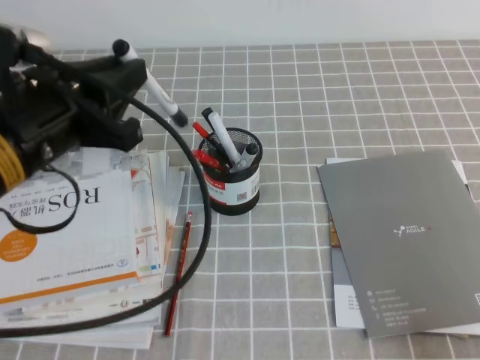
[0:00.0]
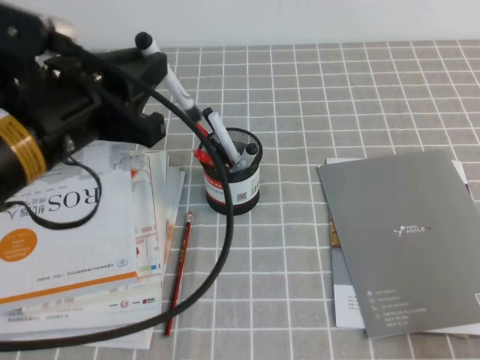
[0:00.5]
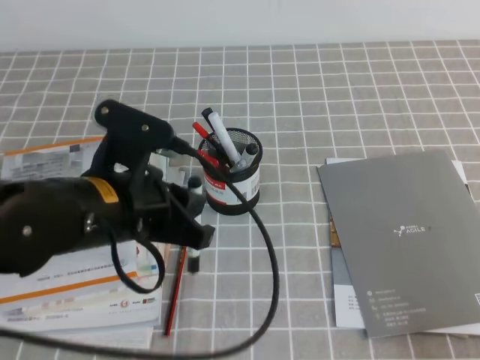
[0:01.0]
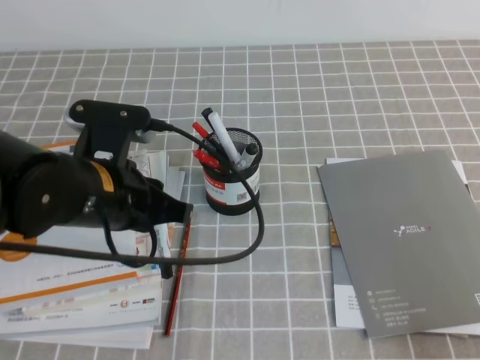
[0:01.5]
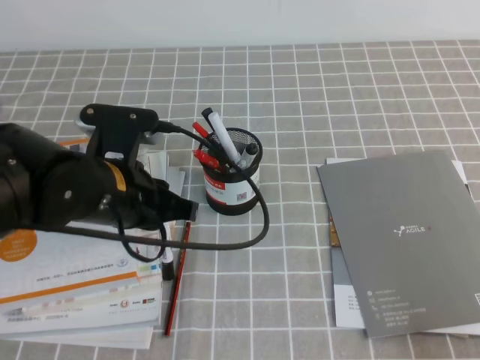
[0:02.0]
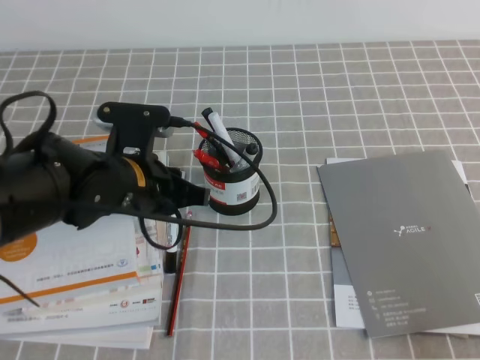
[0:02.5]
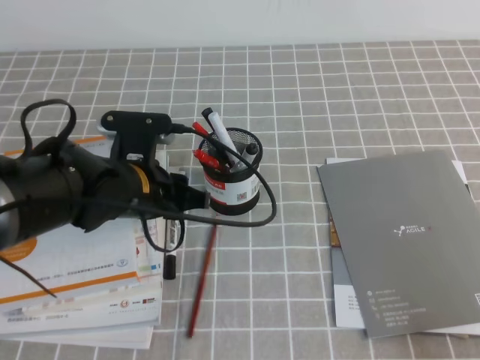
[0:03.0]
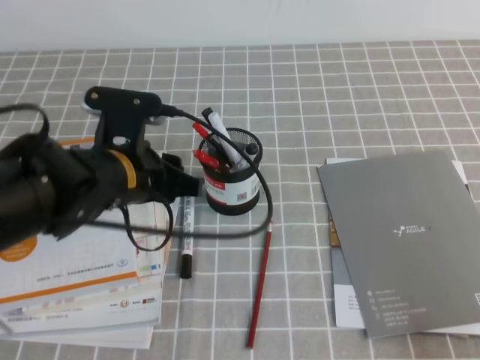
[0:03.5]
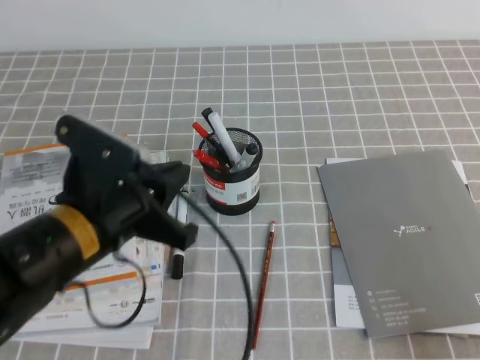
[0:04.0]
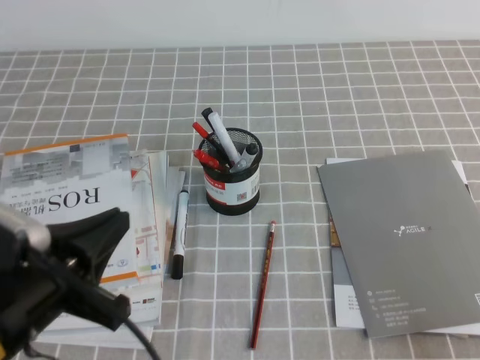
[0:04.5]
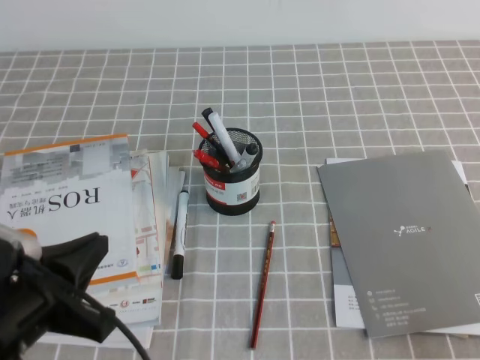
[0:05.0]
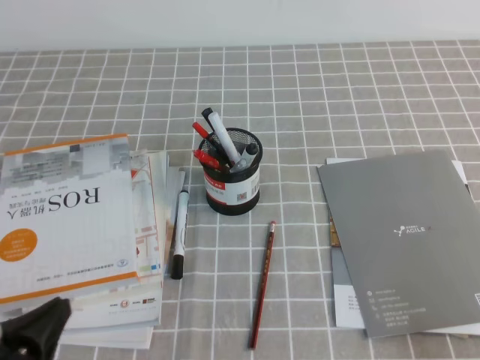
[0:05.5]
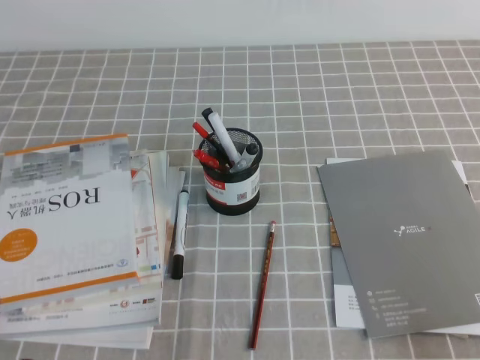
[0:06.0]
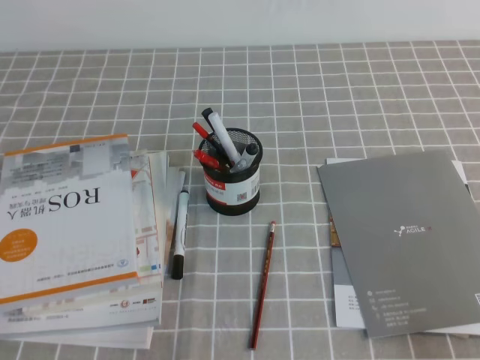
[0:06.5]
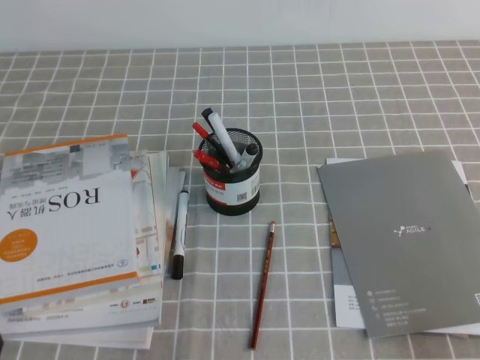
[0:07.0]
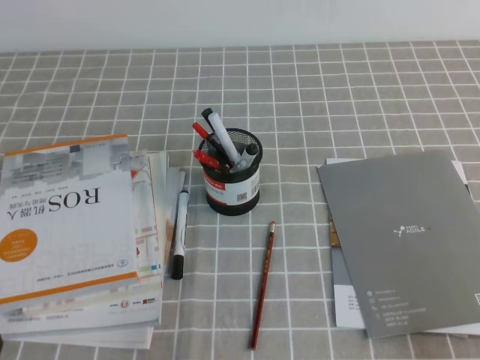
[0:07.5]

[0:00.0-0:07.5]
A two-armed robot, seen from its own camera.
Step, 0:00.0 to 0:07.5: Pick up the pen from the pen holder.
0:00.0 to 0:02.0: The left gripper goes roughly 10 cm downward.
0:04.0 to 0:05.5: The left gripper heads backward, to the left and downward, covering some 15 cm.
0:05.5 to 0:07.5: The left gripper moves roughly 5 cm.
